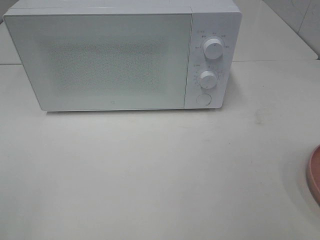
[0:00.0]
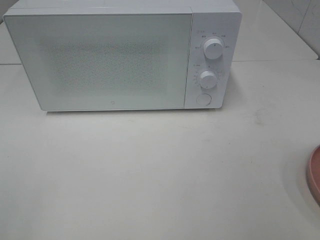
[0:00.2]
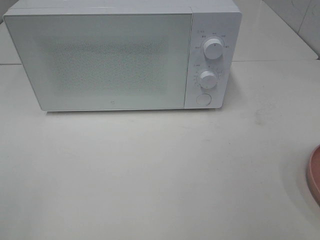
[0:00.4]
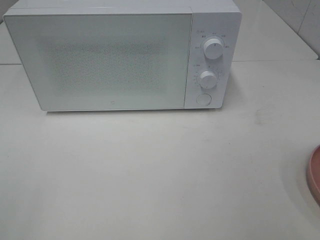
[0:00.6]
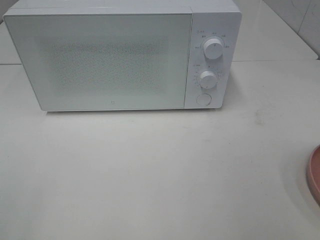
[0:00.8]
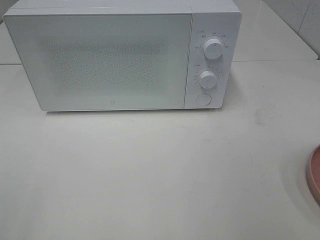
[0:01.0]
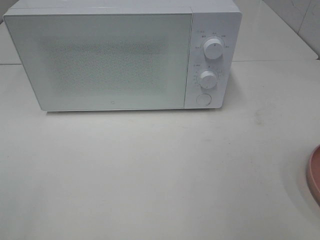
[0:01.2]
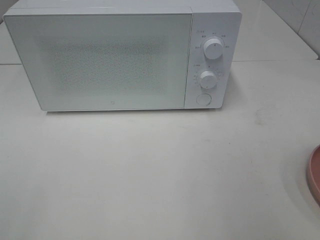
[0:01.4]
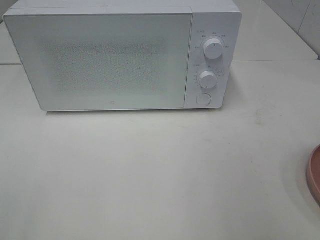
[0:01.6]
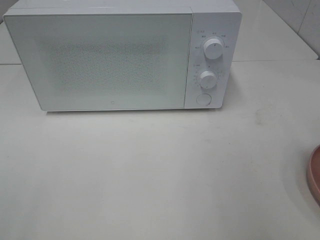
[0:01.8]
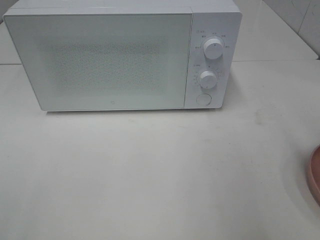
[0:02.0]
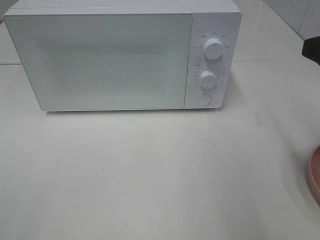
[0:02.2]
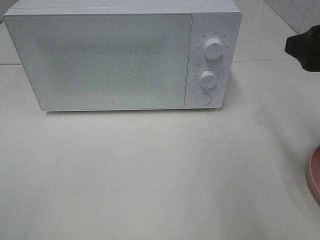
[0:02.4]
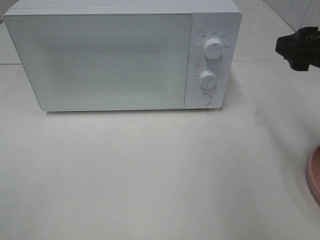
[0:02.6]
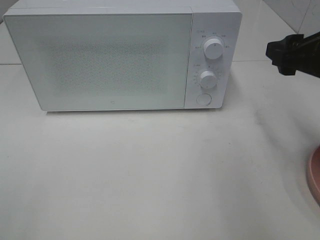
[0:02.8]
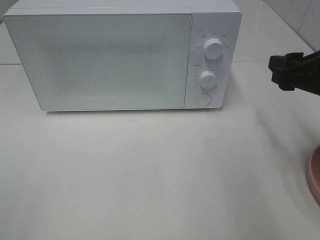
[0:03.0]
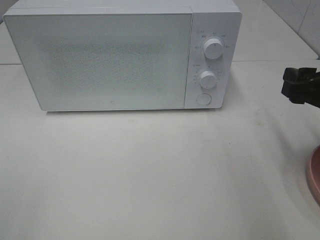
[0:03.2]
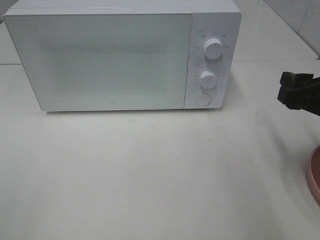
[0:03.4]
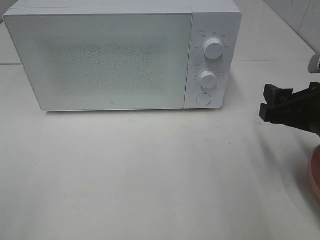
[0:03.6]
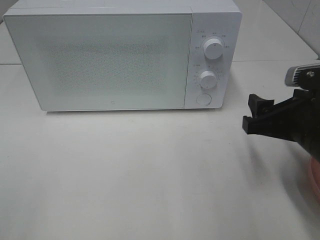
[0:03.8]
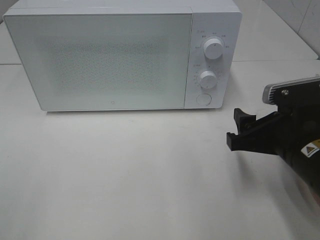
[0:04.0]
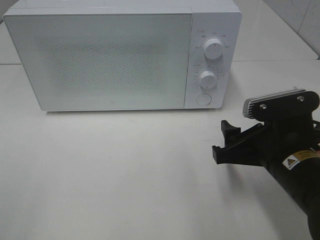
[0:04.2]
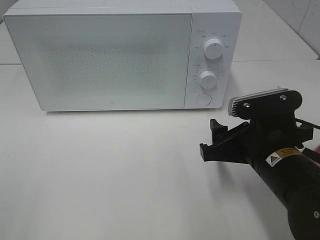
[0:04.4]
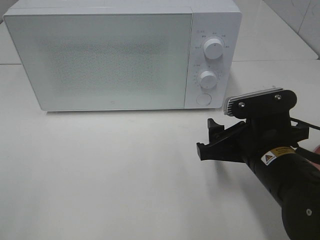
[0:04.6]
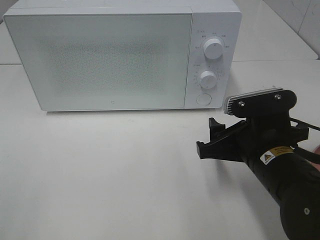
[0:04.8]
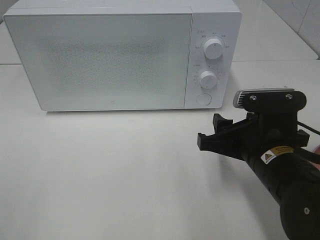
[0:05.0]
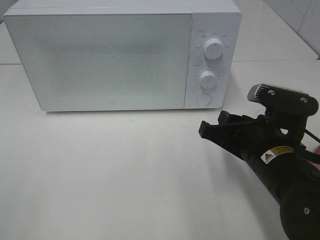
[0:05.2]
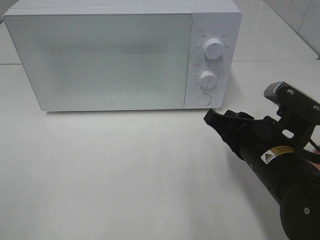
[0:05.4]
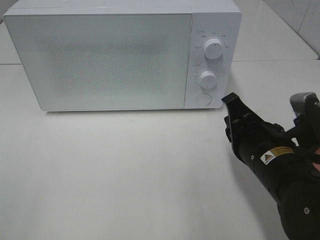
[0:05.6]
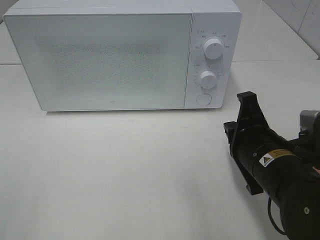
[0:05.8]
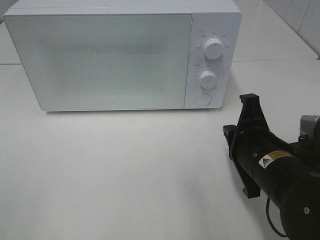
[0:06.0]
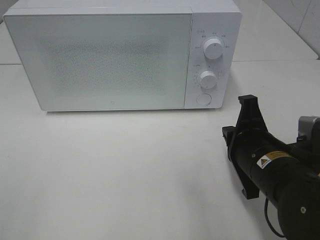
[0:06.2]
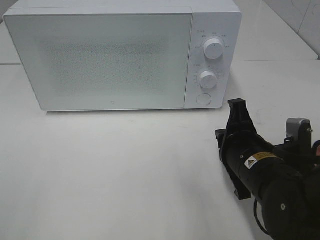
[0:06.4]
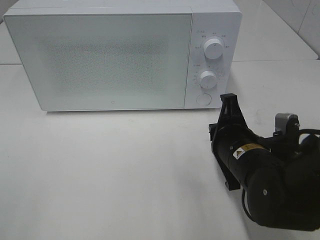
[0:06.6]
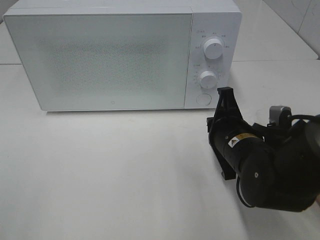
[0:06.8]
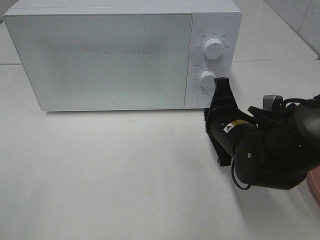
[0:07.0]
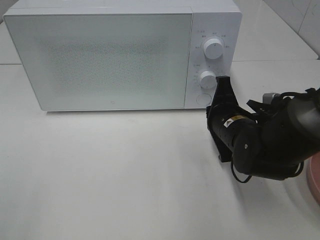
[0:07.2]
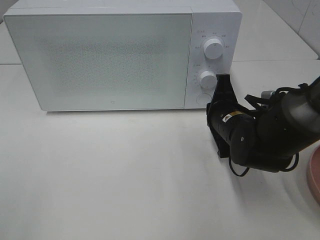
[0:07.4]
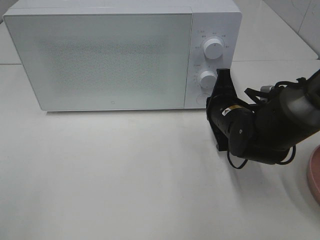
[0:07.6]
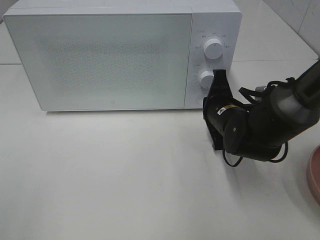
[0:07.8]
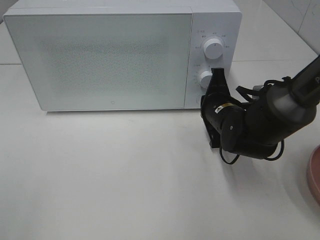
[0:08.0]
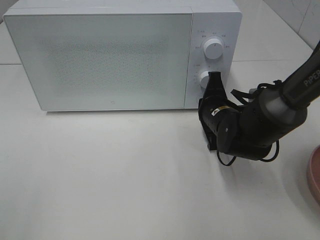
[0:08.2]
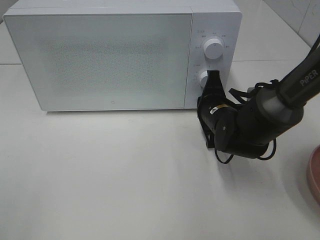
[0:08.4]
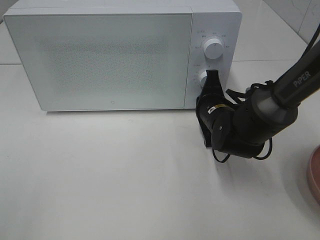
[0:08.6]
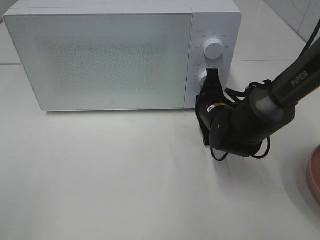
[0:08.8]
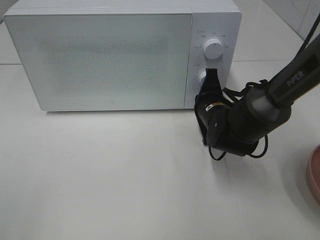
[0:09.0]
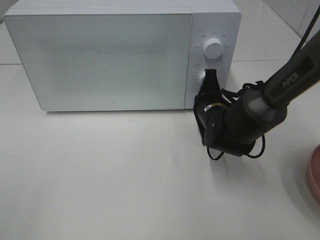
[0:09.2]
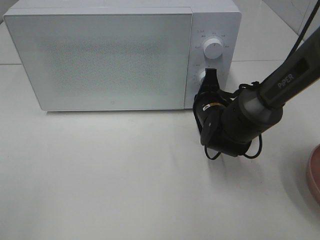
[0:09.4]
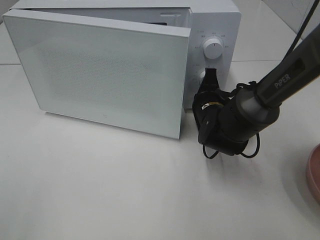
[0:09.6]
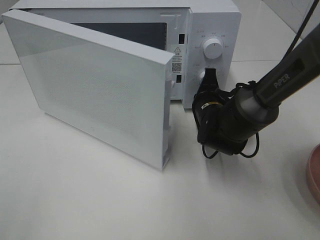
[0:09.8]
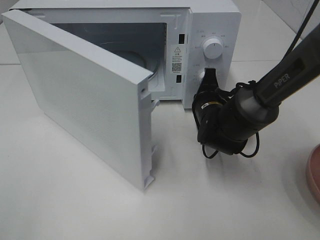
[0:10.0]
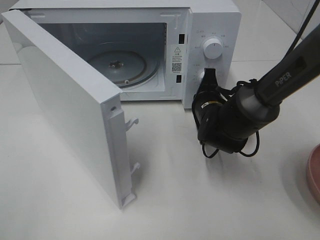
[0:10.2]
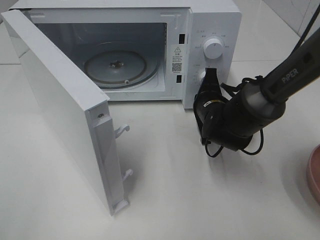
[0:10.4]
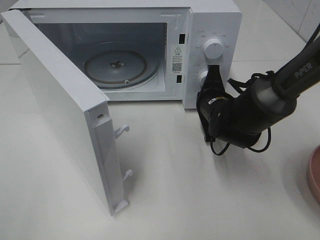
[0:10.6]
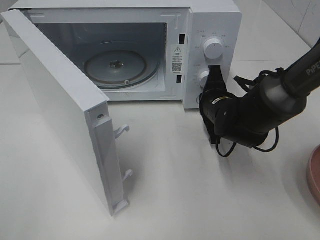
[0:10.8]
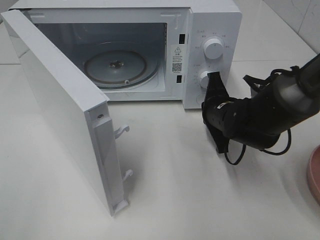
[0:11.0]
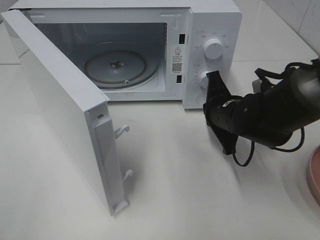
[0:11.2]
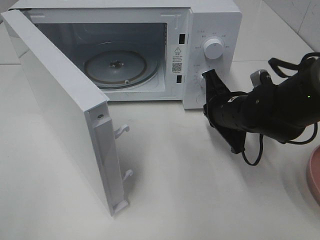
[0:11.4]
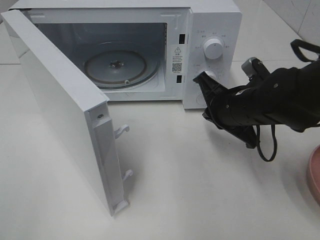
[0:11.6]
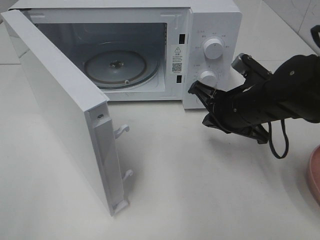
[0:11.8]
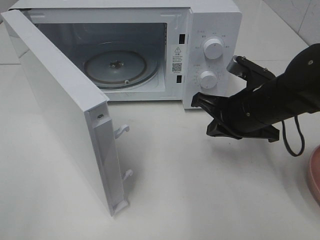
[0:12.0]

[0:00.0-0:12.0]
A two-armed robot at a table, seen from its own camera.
Task of the whole recording: Heat the burger.
Step, 0:00.0 to 0:10.8: Right hand: press the switch.
0:01.6 to 0:03.0: The right gripper is displaced forward and downward by roughly 15 cm.
0:03.0 to 0:04.4: The right gripper moves to the left and downward, about 15 cm.
0:04.4 to 0:06.0: The right gripper closes.
0:06.0 to 0:07.6: The right gripper moves forward, about 10 cm.
0:07.6 to 0:09.0: There are only small adjustments of the grippers.
0:10.4 to 0:12.0: The right gripper shifts approximately 10 cm upward and backward.

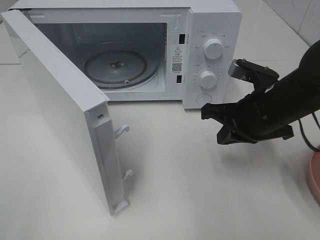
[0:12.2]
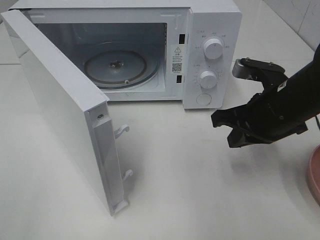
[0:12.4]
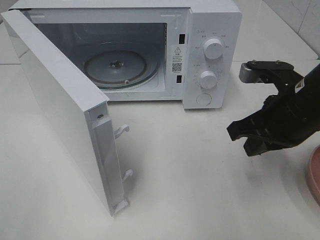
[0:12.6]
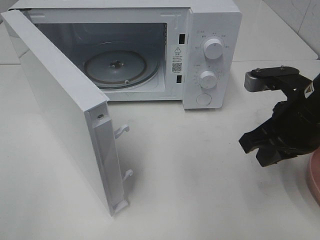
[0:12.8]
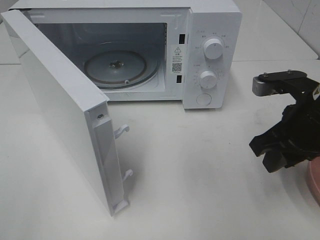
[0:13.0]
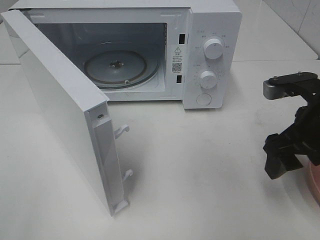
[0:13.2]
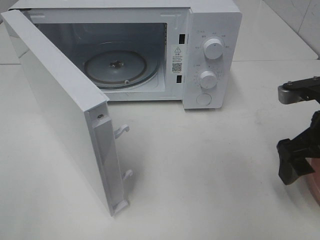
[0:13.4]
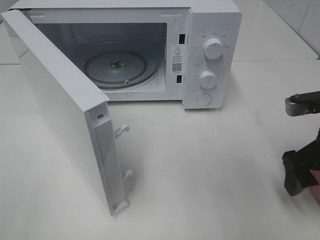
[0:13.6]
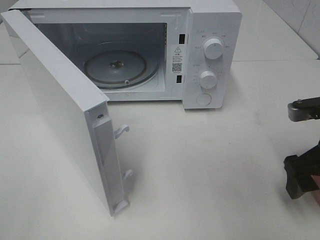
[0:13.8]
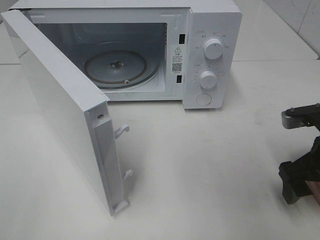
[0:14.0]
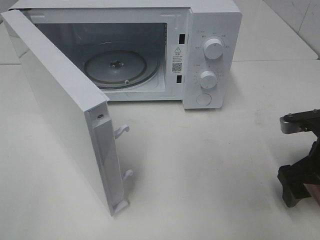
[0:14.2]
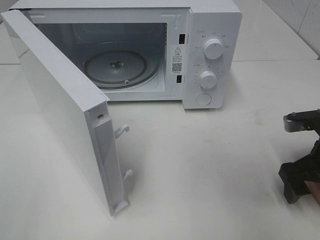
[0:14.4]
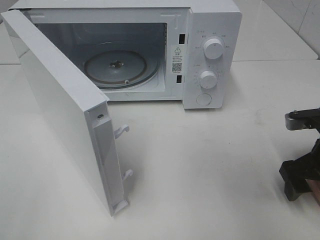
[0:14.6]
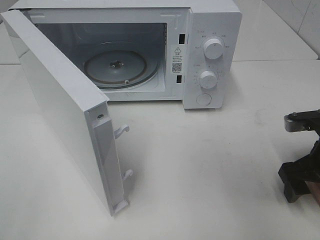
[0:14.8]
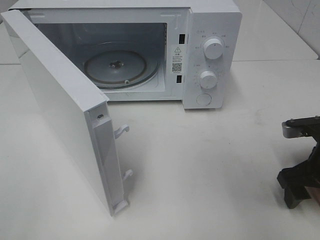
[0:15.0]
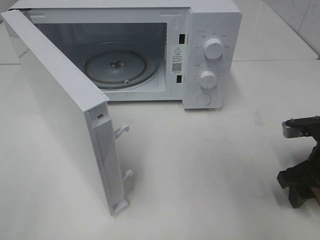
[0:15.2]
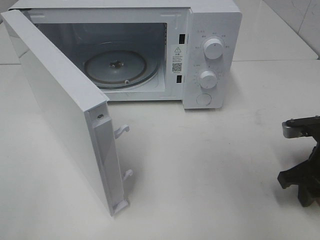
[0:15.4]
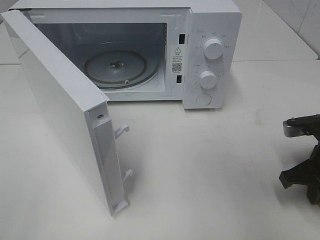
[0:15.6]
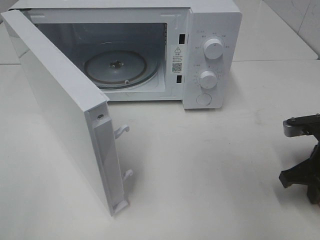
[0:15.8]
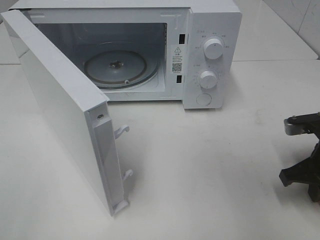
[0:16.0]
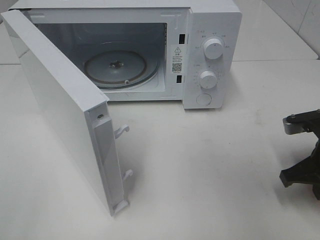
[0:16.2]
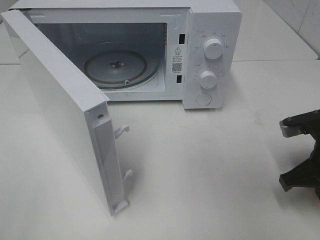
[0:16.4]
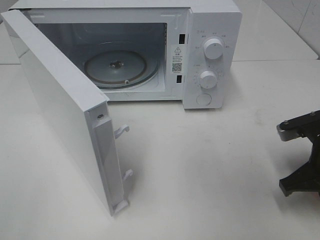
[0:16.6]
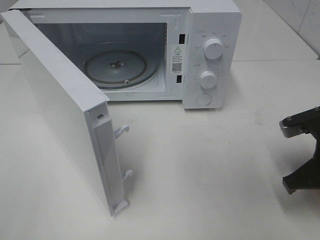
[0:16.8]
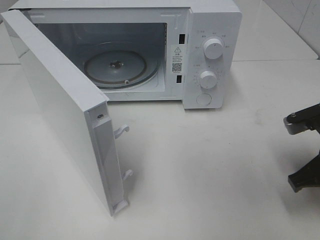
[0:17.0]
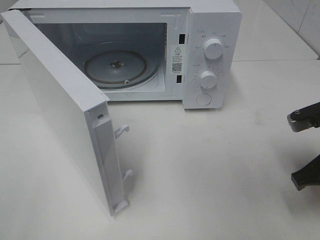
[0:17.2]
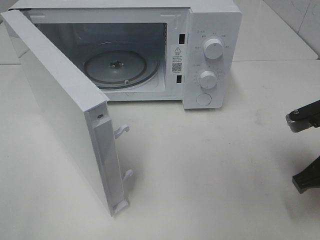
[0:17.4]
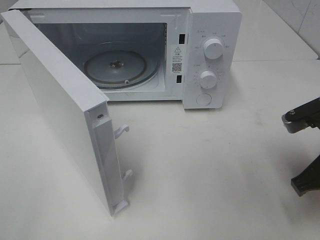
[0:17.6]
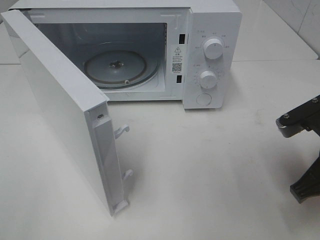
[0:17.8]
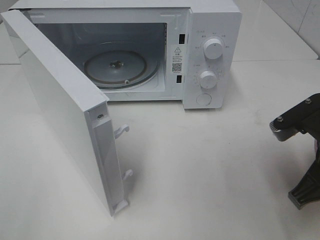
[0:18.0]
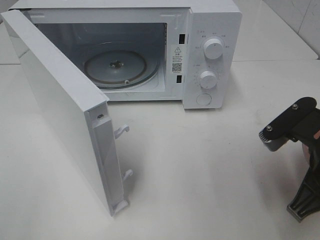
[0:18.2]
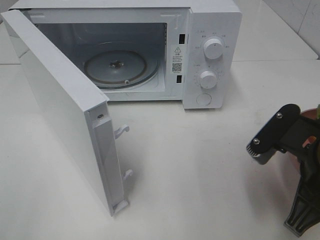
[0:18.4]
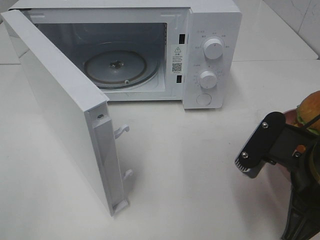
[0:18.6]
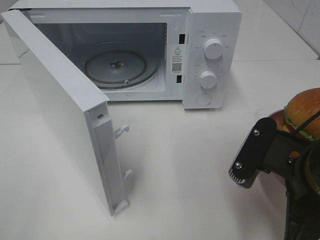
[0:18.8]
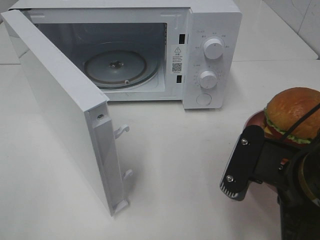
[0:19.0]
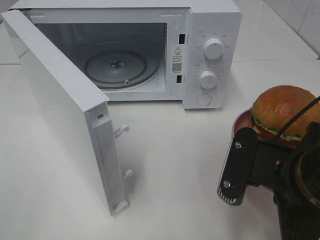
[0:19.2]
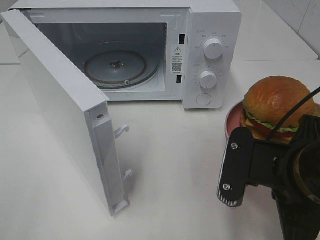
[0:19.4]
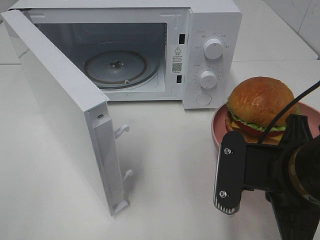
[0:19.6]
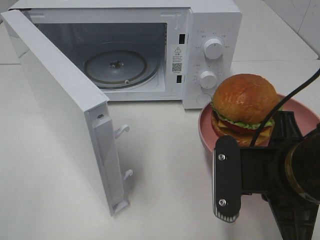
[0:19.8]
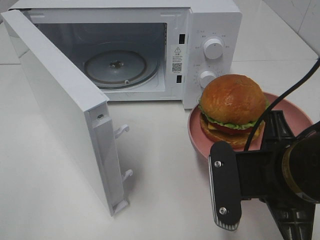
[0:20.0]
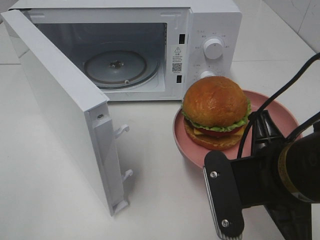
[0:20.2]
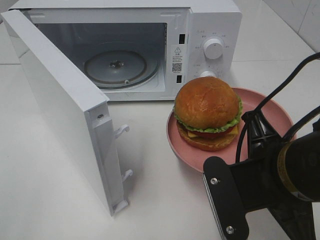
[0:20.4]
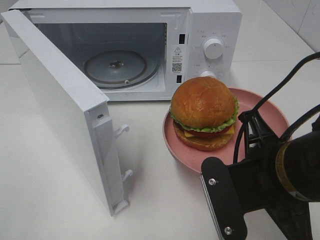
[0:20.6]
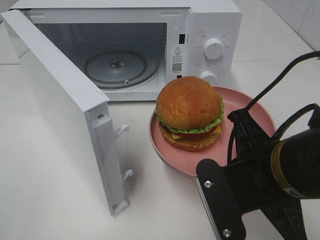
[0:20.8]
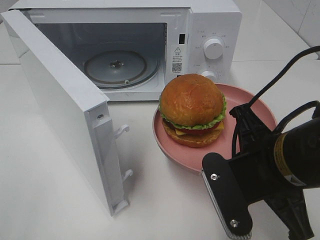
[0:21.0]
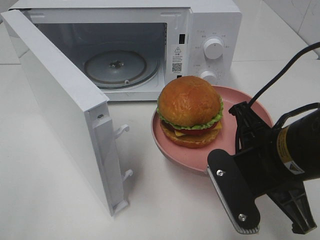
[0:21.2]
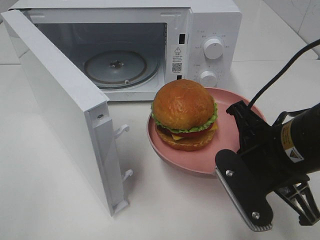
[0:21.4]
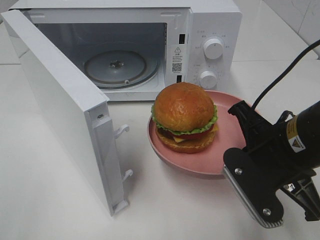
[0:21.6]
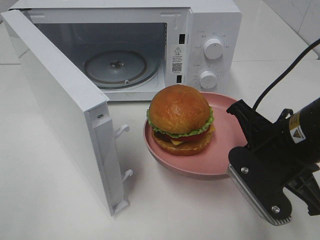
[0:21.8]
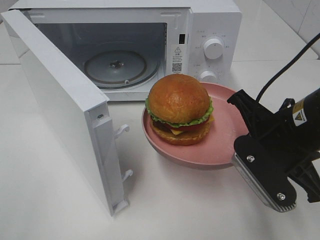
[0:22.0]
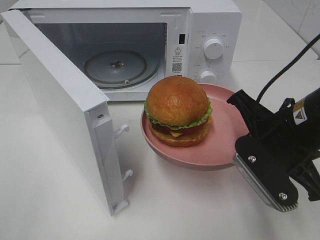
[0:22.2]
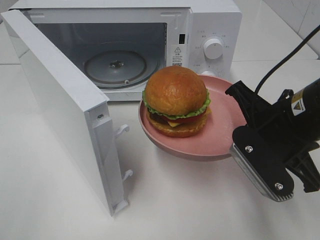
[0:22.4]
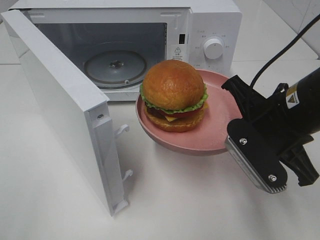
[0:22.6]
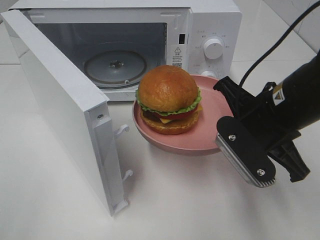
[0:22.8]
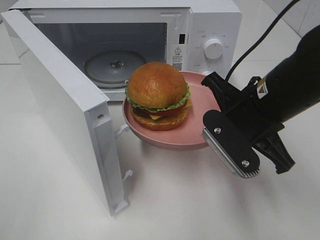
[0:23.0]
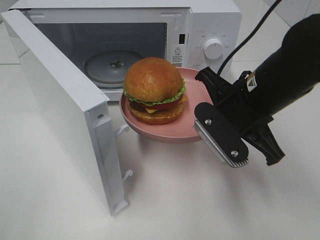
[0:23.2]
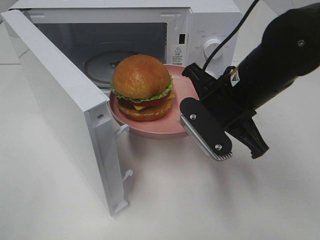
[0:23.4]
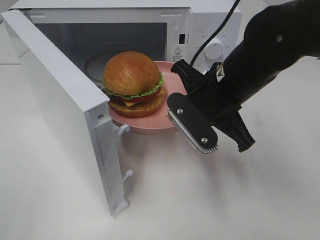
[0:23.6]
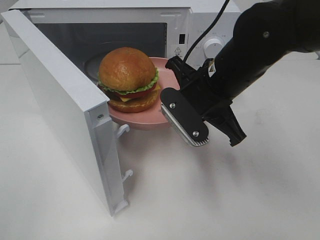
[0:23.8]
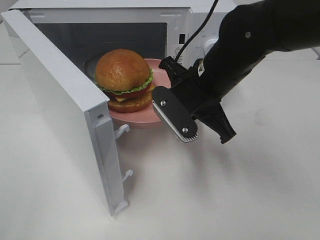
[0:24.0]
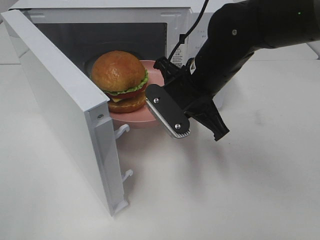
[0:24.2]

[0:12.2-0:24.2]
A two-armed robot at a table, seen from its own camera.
Task of the whole recording: Heat the burger.
Step, 0:12.2 to 0:15.6: Right hand: grab the plate with the hamburger.
0:12.2 to 0:13.8: The right gripper is displaced to the right and backward by approximately 10 cm, and opens its fingers.
0:13.8 to 0:15.2: The right gripper heads downward, covering roughly 5 cm.
0:15.2 to 0:16.6: The right gripper closes up.
0:16.6 to 0:18.2: The right gripper travels upward, backward and to the left by roughly 10 cm.
0:18.2 to 0:19.8: The right gripper is displaced to the left by approximately 5 cm.
0:21.2 to 0:22.6: The right gripper shifts by about 5 cm.
0:22.6 to 0:24.2: The right gripper shifts some 15 cm forward and to the left.
